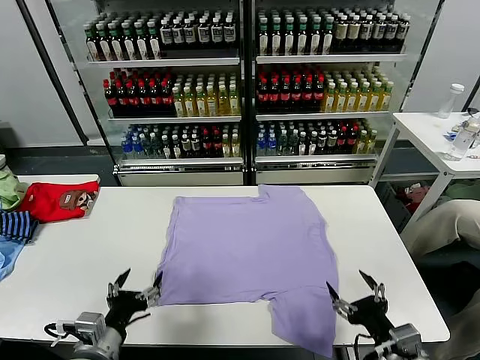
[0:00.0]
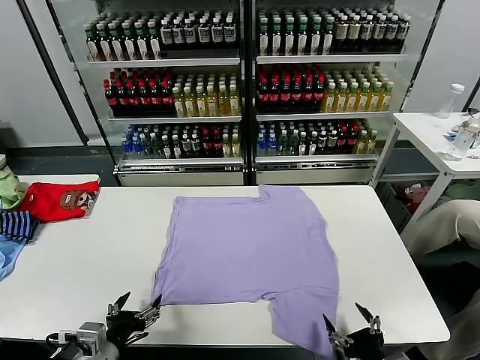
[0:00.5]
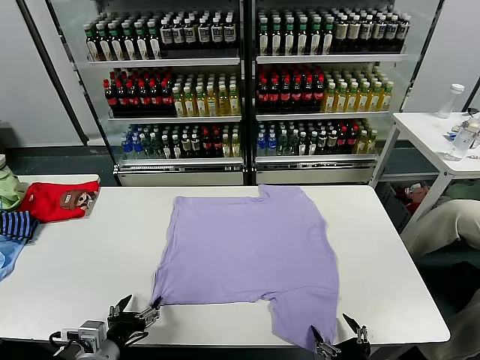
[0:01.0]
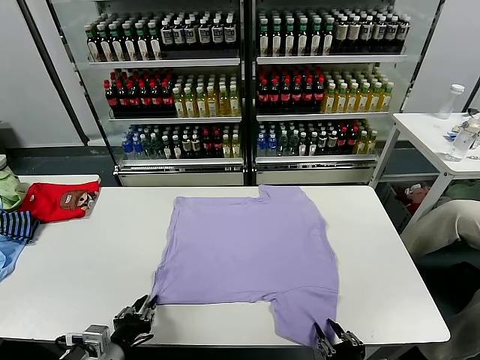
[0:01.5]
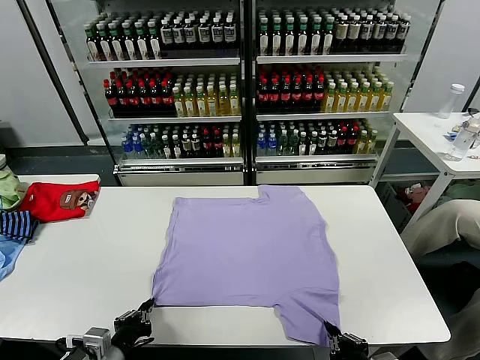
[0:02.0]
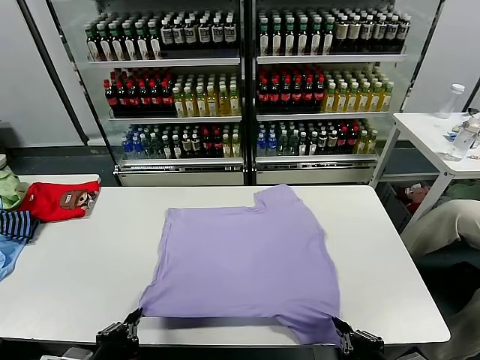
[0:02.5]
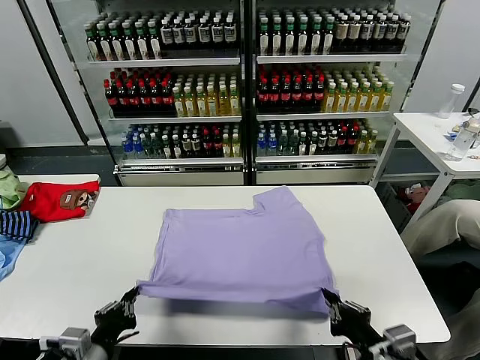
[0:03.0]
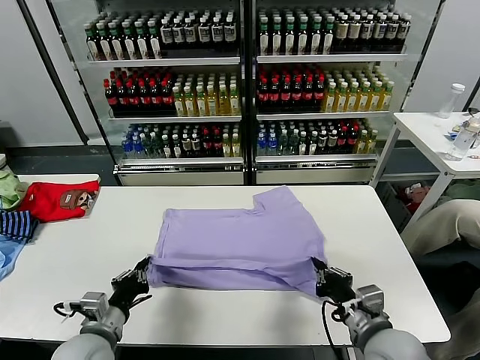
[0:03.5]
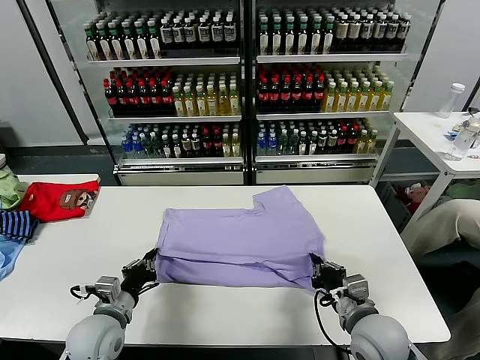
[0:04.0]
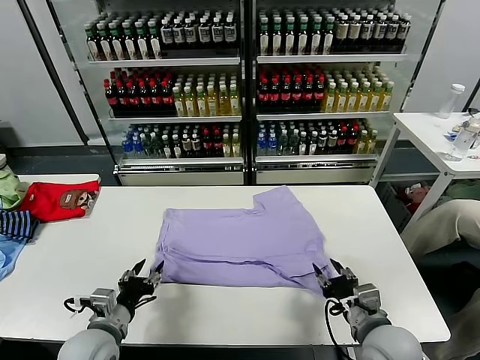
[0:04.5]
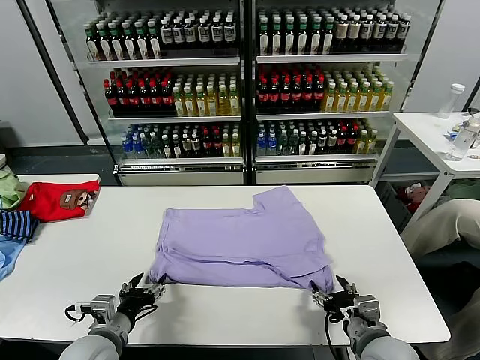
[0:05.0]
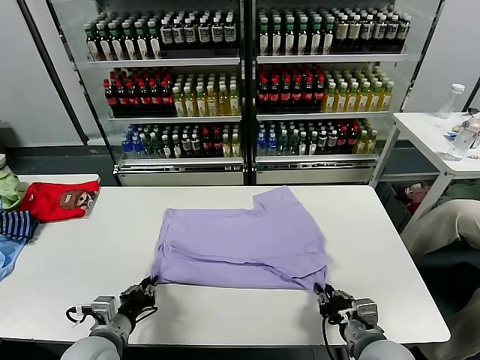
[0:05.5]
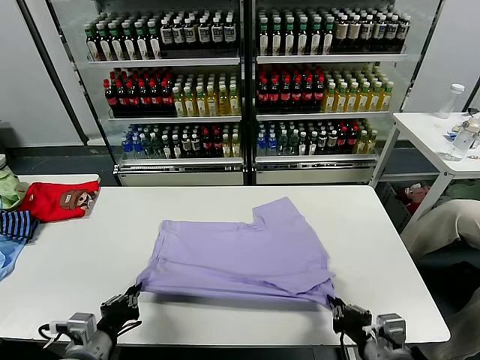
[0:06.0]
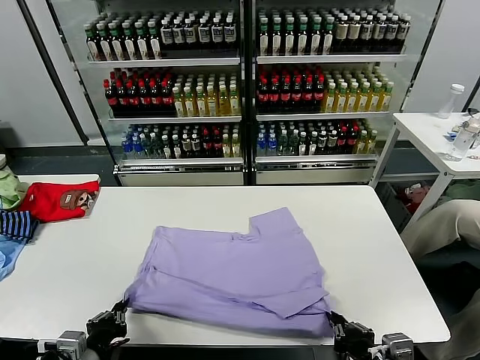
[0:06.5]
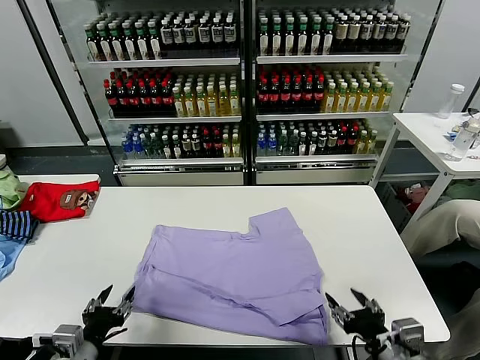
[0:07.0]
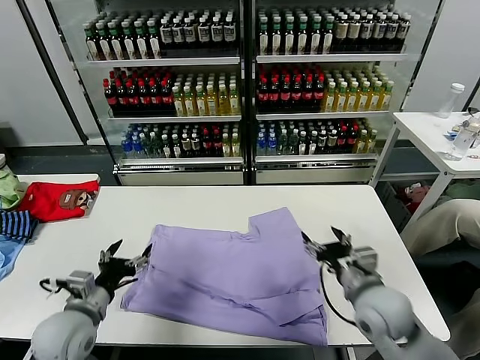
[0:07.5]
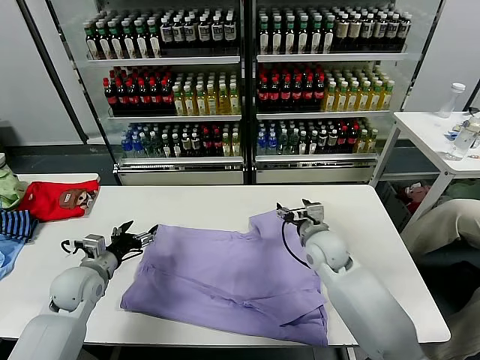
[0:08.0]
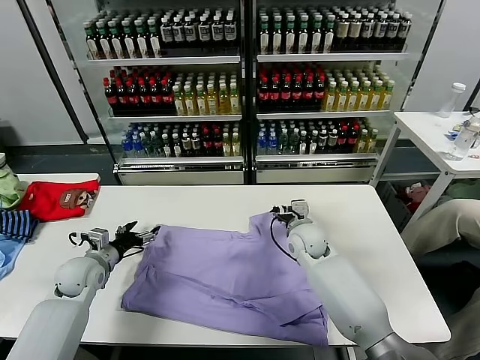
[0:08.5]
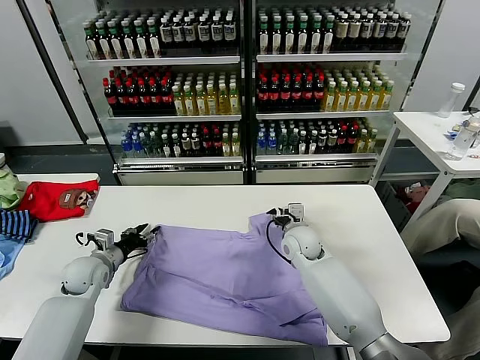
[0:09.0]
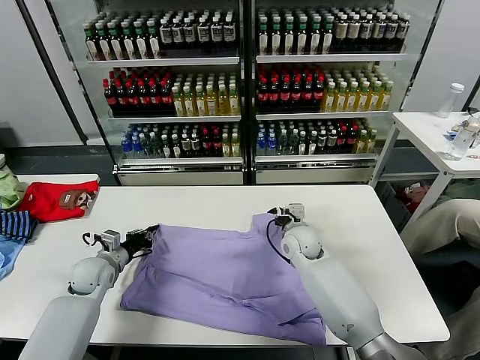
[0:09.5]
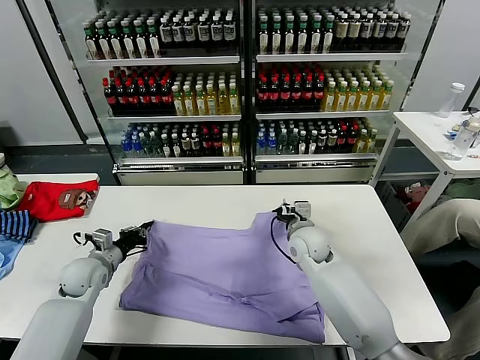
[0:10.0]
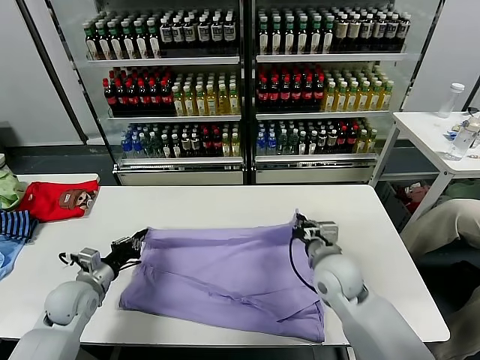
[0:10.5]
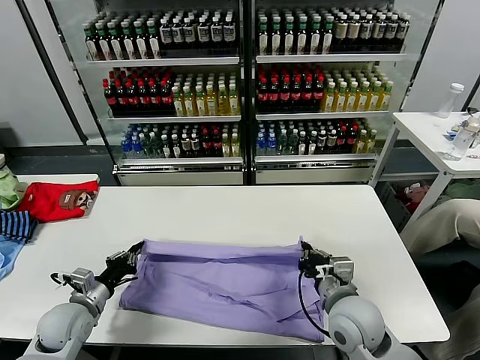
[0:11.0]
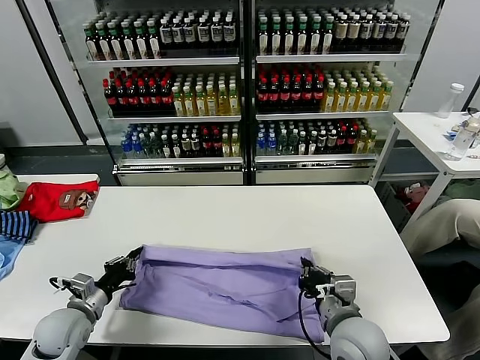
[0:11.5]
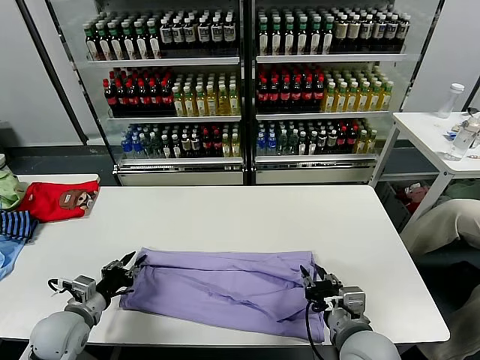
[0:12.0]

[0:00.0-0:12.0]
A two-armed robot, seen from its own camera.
Task of the whole recording: fold and organize the clothes.
Step, 0:00.0 to 0:01.5: use both grippers simultaneously to clamp the lower edge of the clothing fabric.
Step, 0:02.0 to 0:04.5: use both grippers to drag the lower edge of the fabric forward and fold it over the upper edge.
Step, 0:05.0 to 0:07.0: Drag the clothes downward with both gripper.
Step, 0:07.5 to 0:09.5: use both grippers simultaneously to clamp the upper edge of the clothing fabric.
0:02.0 to 0:04.0: The grippers both shift forward by about 10 cm.
0:04.0 to 0:06.0: The grippers both shift backward by approximately 10 cm. The left gripper opens, then closes again, while the right gripper opens, then closes again.
0:06.0 to 0:08.0: The right gripper shifts approximately 30 cm forward, and opens up, while the left gripper goes some 20 cm forward, and opens.
0:08.0 to 0:10.0: The right gripper closes, while the left gripper ends up some 5 cm from where it was, and closes up.
0:10.0 to 0:12.0: The right gripper moves backward, roughly 25 cm, and opens up. The left gripper moves backward, about 15 cm, and opens.

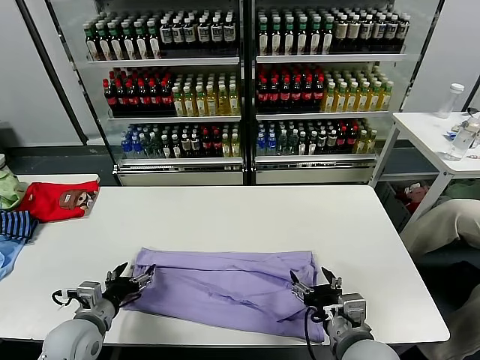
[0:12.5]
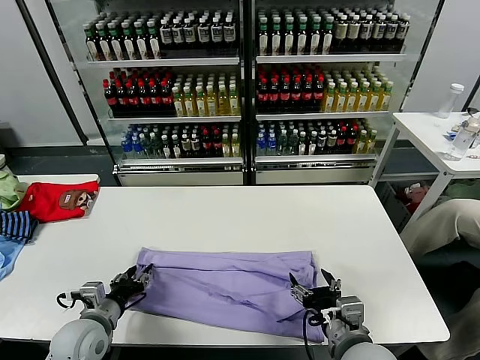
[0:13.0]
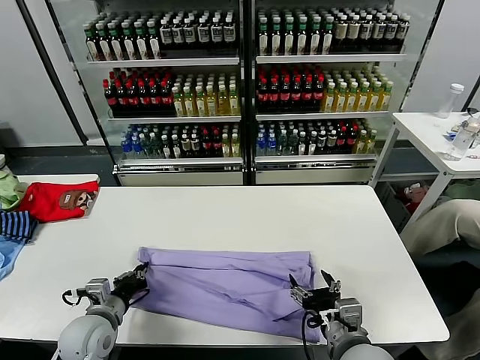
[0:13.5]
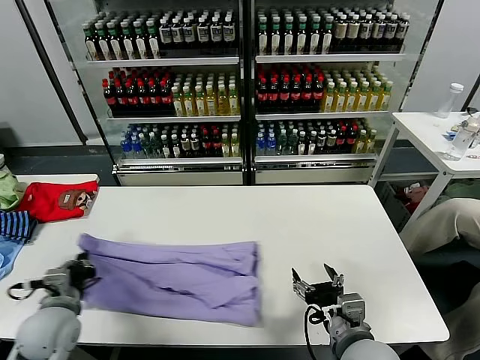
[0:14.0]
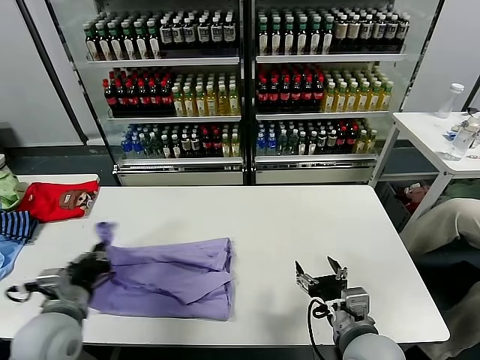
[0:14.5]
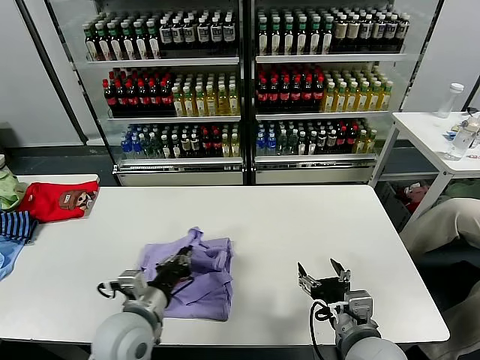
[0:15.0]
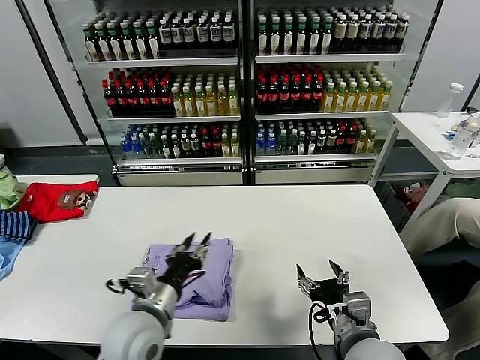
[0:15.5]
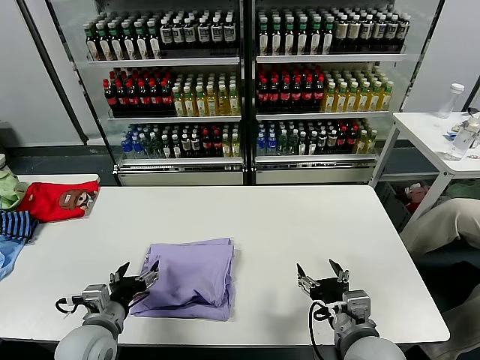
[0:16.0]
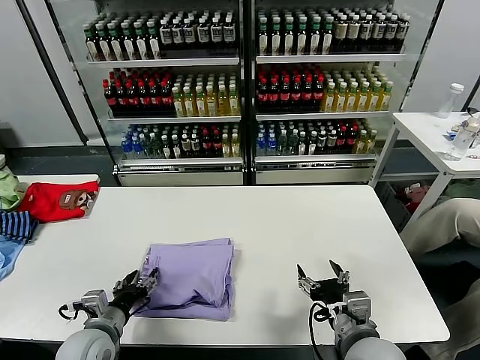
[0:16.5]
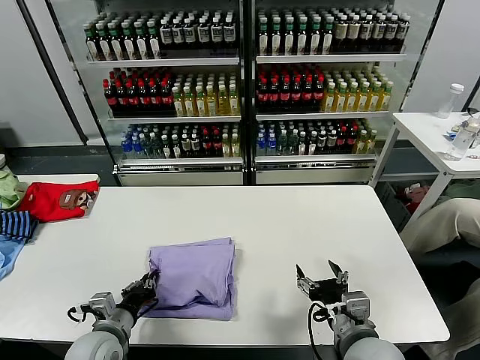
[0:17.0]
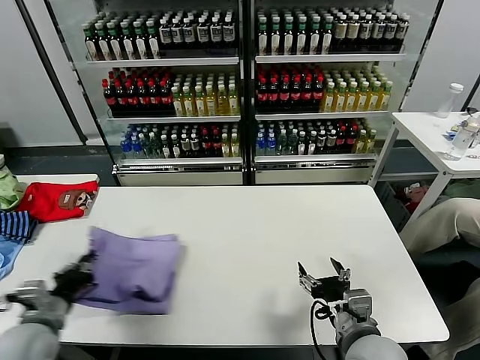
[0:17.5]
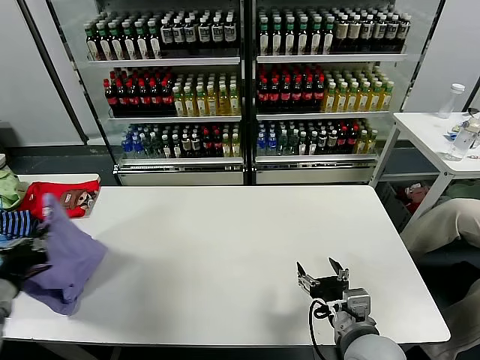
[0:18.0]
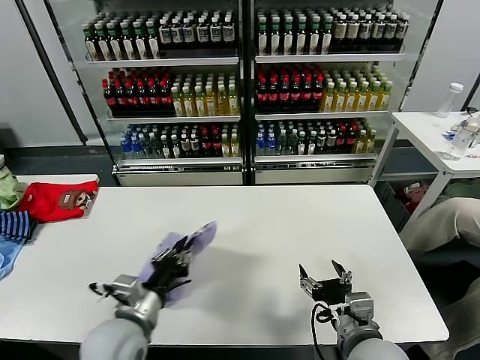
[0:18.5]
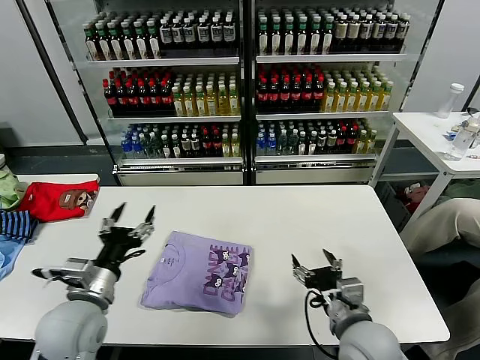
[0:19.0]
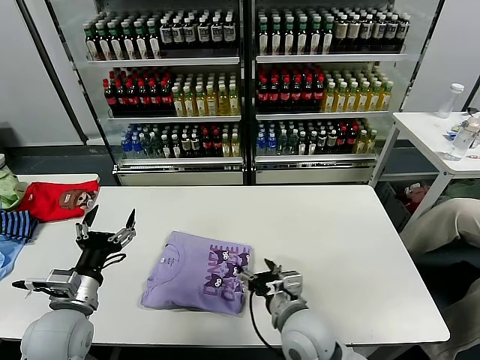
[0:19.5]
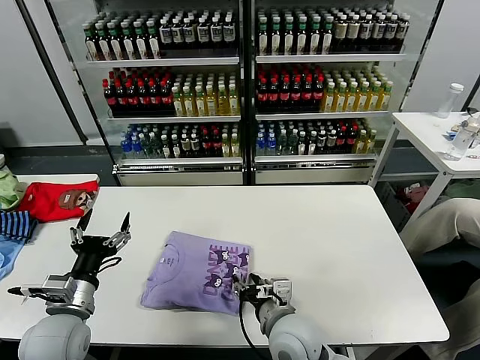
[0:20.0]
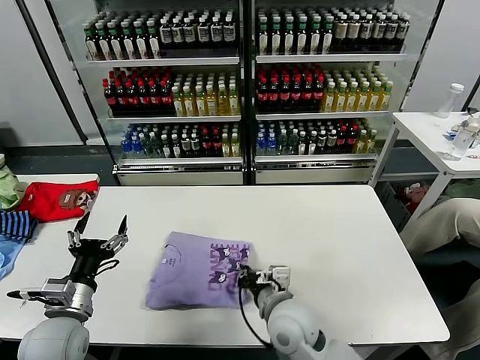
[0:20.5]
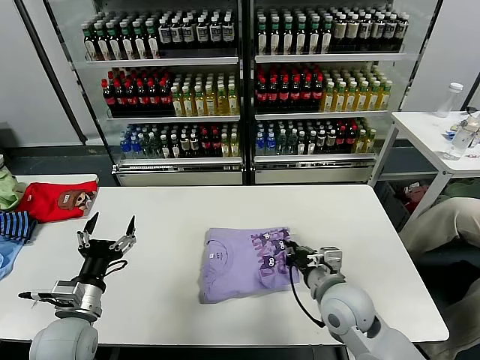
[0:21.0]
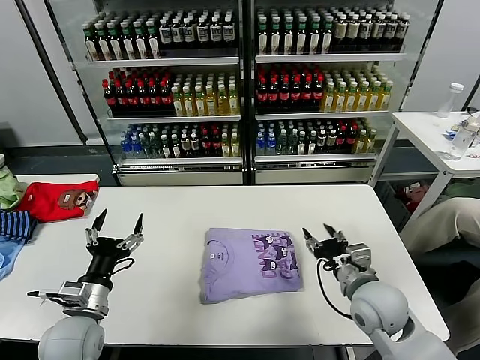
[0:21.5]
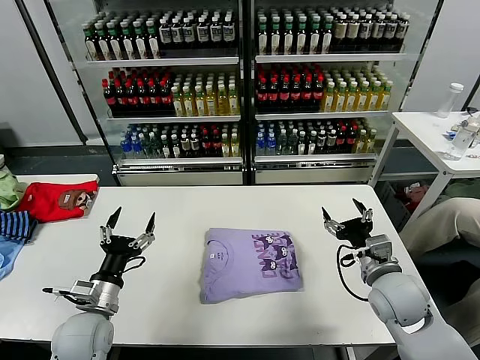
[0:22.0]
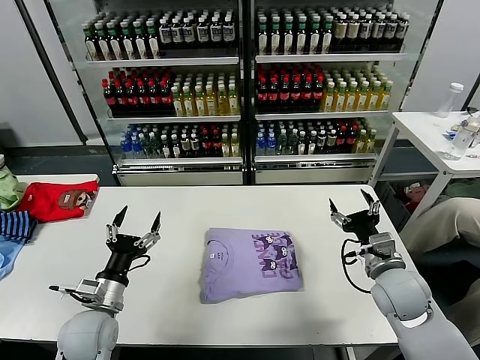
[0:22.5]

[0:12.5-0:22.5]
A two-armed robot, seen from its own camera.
Task of the whole recording: fold and organize the clothes.
Step, 0:12.5 to 0:13.5: use the left gripper to clamp the left edge of the fabric.
Step, 0:14.0 to 0:15.5: use the left gripper to drag the left edge of the fabric to the left and folds it over the right edge.
Step, 0:16.0 to 0:18.5: Flip the folded clothes over with left gripper.
Step, 0:19.0 to 0:21.5: Drag the clothes to the center of the table.
0:12.5 to 0:14.5: The left gripper moves upward, roughly 10 cm, and closes its fingers.
0:14.5 to 0:16.5: The left gripper shifts about 10 cm downward, moves some 15 cm to the right and comes back, and opens its fingers.
0:16.5 to 0:18.5: The left gripper is displaced upward by about 10 cm, moves some 15 cm to the left and comes back, and closes its fingers.
0:18.5 to 0:20.5: The left gripper is displaced to the left by about 10 cm, and opens its fingers; the right gripper heads to the left and forward, covering about 15 cm, and closes.
0:20.5 to 0:22.5: The left gripper shifts by approximately 5 cm, while the right gripper shifts some 20 cm to the right, and opens up.
